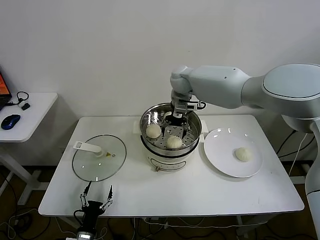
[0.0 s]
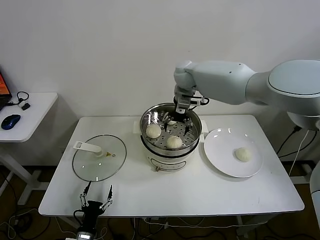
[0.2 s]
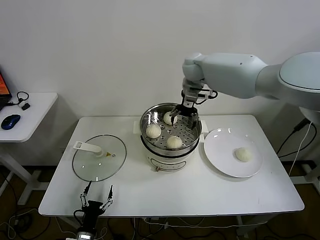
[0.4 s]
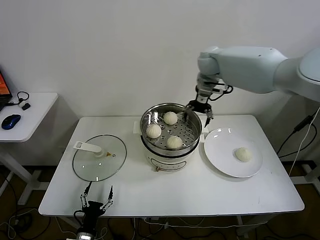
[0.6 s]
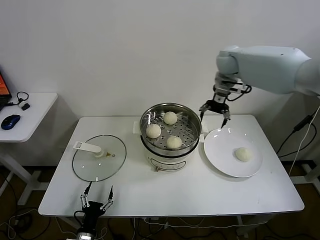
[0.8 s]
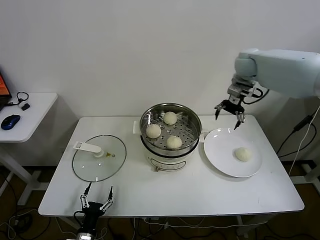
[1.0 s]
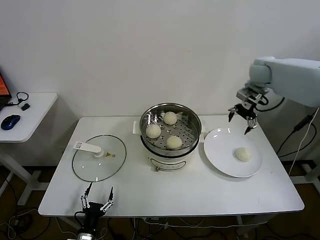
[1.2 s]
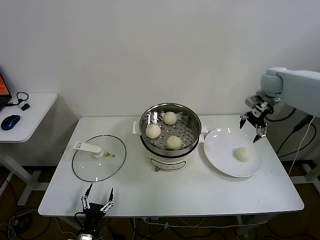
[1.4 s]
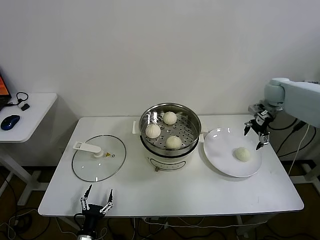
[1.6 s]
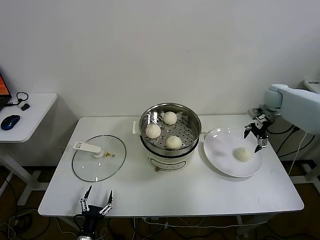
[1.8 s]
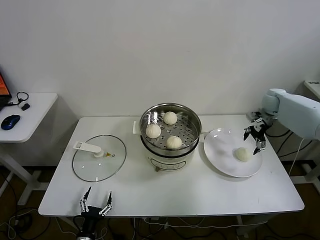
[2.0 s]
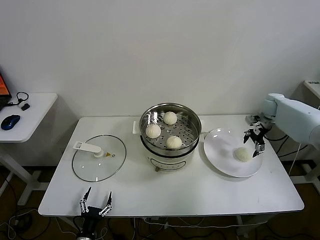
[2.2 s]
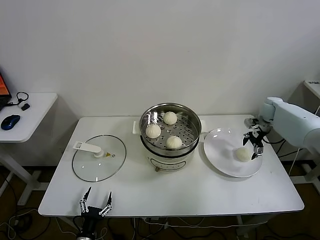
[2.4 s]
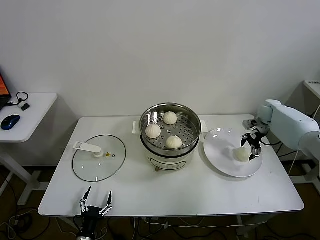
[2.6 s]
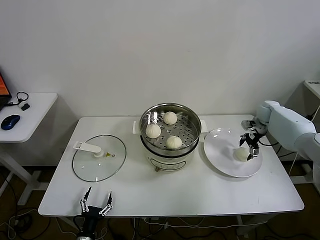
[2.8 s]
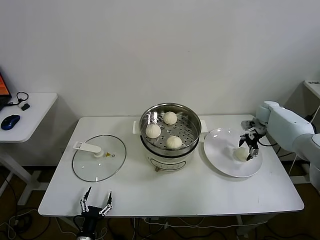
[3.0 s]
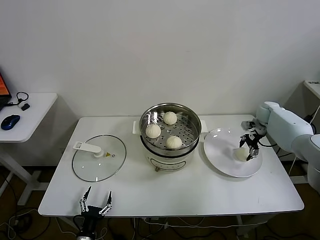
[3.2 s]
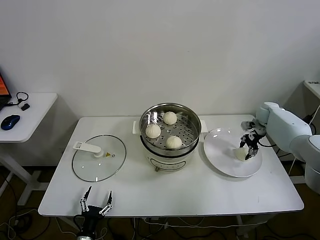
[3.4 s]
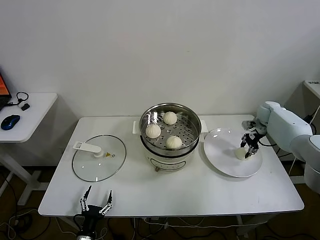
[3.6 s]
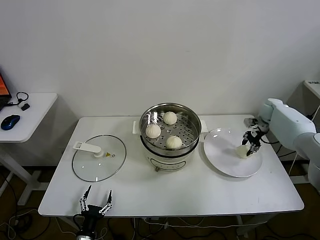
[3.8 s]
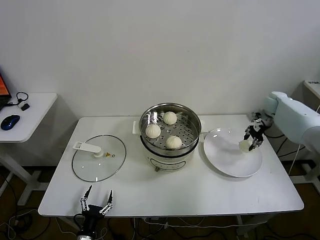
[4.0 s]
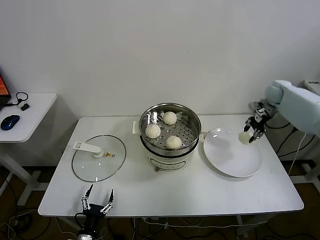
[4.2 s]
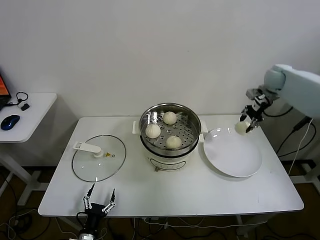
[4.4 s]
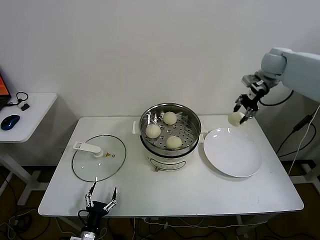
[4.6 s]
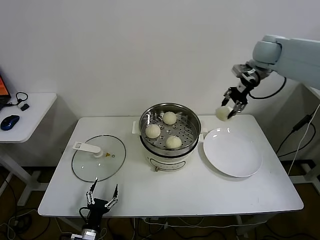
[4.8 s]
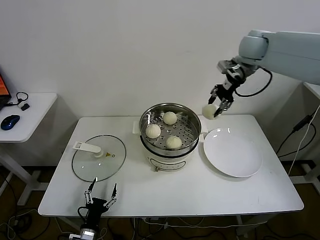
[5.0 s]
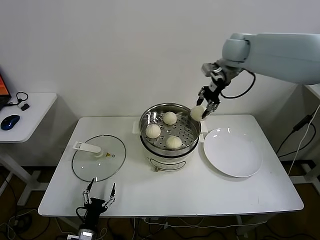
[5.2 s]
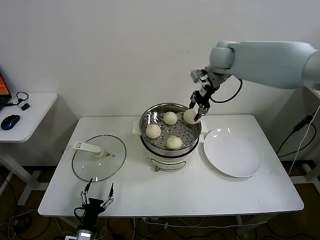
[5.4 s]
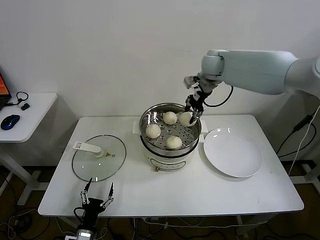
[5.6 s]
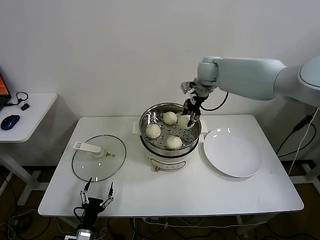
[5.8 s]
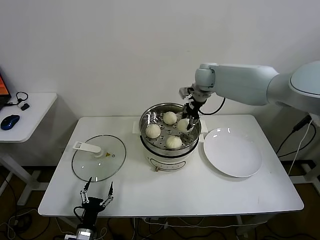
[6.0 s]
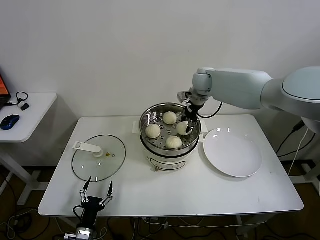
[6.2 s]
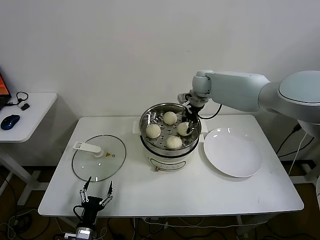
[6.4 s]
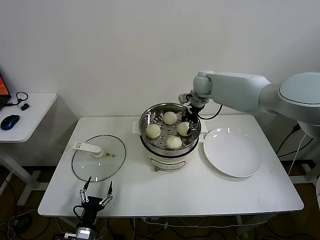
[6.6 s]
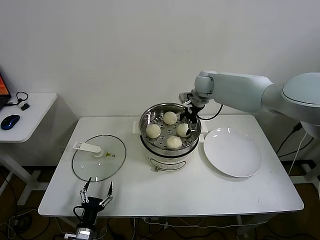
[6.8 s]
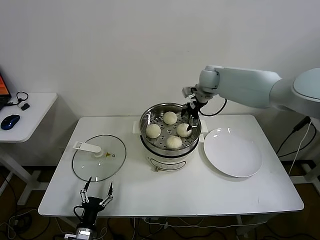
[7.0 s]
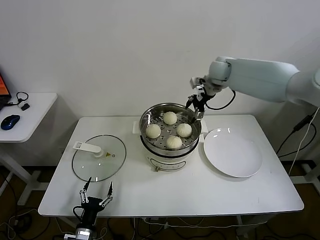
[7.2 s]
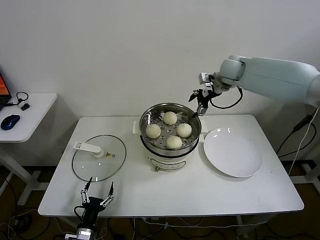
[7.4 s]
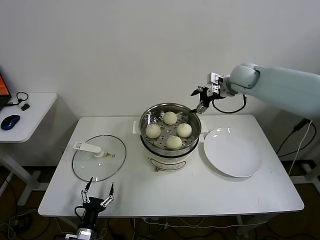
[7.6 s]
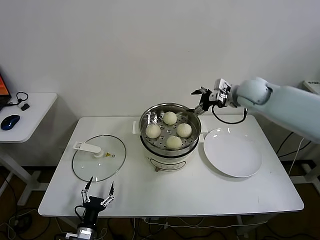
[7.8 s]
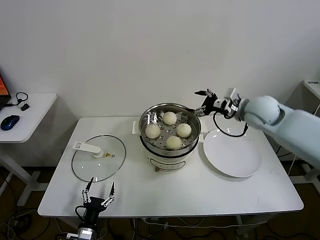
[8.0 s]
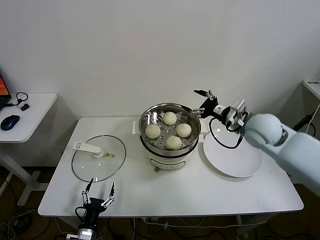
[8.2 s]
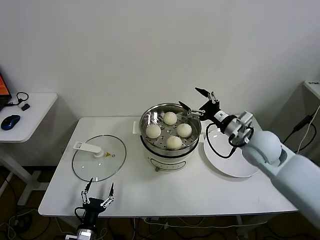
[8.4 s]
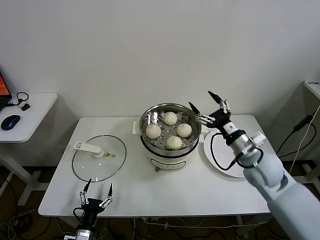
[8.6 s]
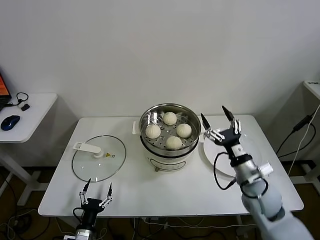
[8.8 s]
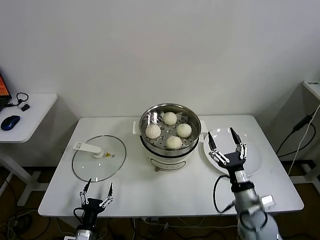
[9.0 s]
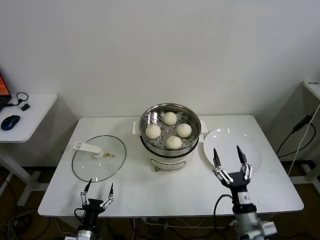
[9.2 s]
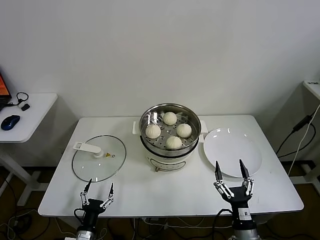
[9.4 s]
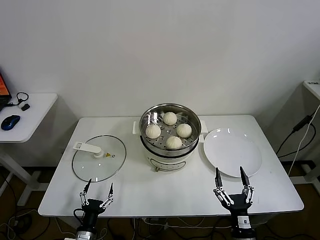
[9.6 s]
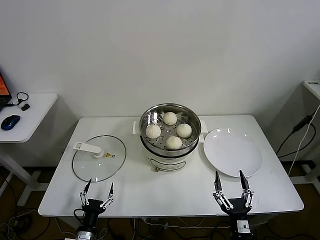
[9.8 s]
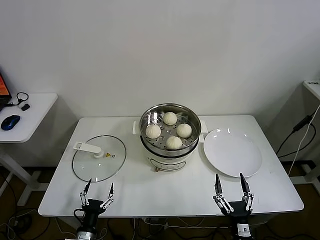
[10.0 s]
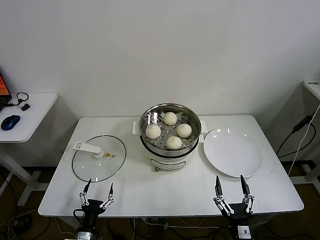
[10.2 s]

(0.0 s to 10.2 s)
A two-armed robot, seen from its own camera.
Task of the whole recording: take steamed baozi put them in steamer.
Step, 0.0 s - 3.4 s: Grasp the baozi in the plate with right gripper.
Step, 3.8 s - 6.8 s: Place the baozi on the steamer with right gripper.
0.0 s - 1.4 s: The right gripper moves to the right, about 30 cm.
1.4 s - 3.0 s: The right gripper travels downward by roughly 15 cm.
3.0 s - 4.4 s: The right gripper moves upward, some 15 cm, and closes its fingers.
4.4 s - 5.8 s: The right gripper moves to the left, about 25 cm.
5.8 s - 7.2 s: The right gripper opens its fingers.
7.2 s - 8.8 s: The right gripper is displaced backward and downward by some 40 cm.
8.8 s - 10.2 s: The right gripper heads backward and downward, covering some 25 cm.

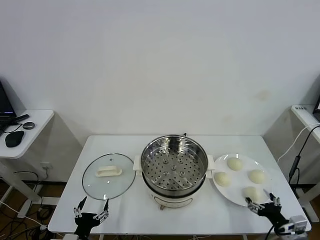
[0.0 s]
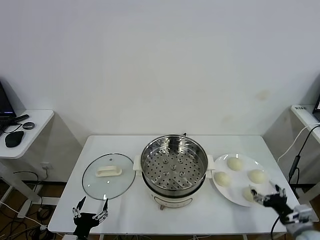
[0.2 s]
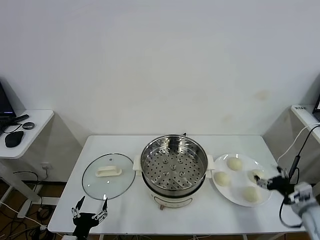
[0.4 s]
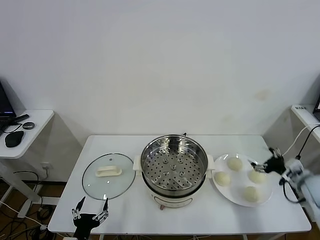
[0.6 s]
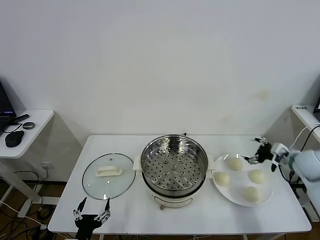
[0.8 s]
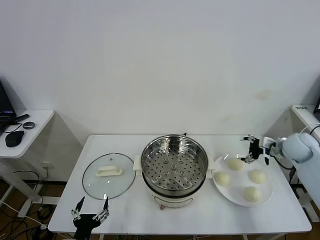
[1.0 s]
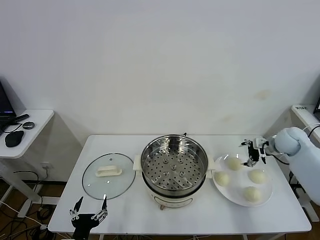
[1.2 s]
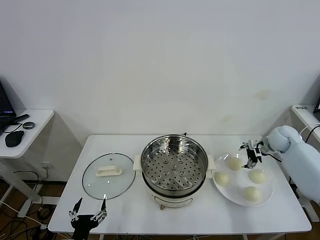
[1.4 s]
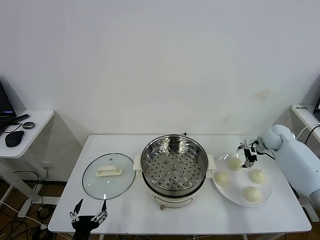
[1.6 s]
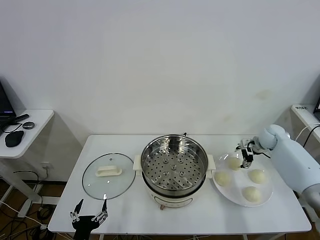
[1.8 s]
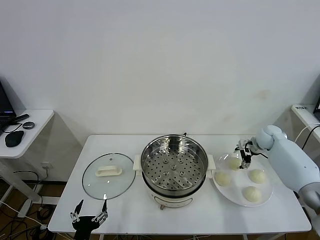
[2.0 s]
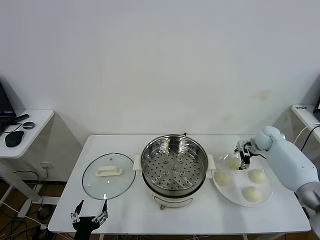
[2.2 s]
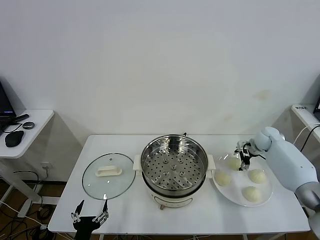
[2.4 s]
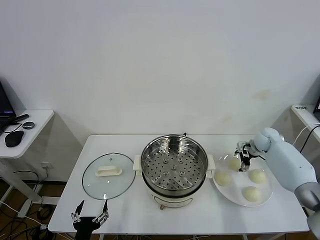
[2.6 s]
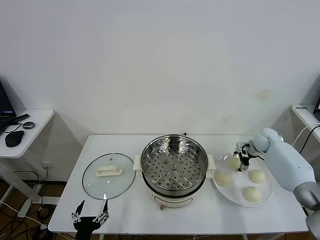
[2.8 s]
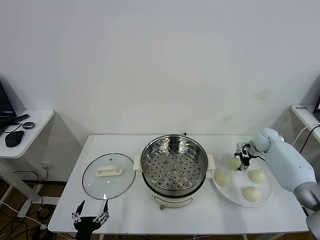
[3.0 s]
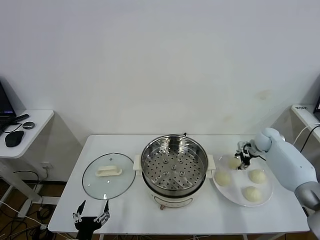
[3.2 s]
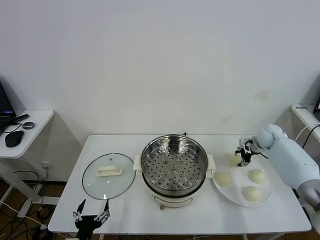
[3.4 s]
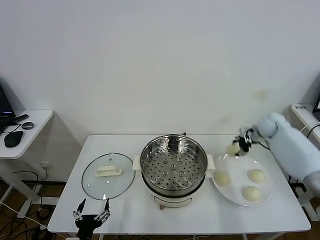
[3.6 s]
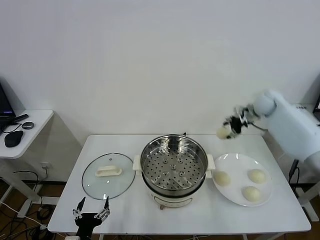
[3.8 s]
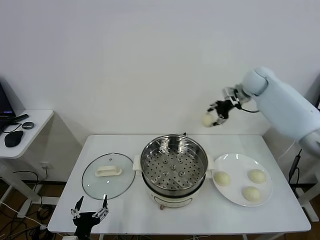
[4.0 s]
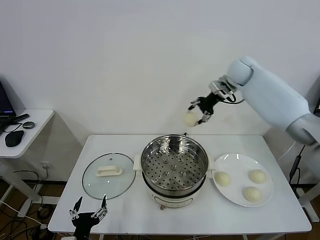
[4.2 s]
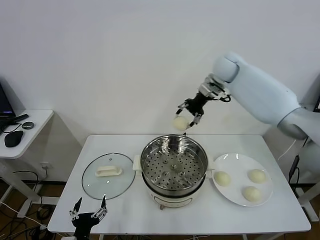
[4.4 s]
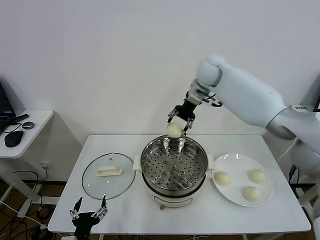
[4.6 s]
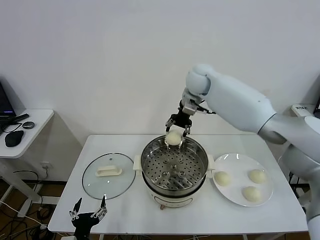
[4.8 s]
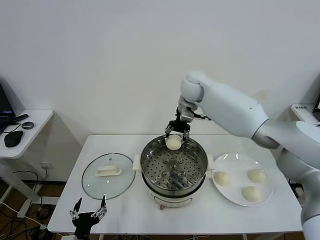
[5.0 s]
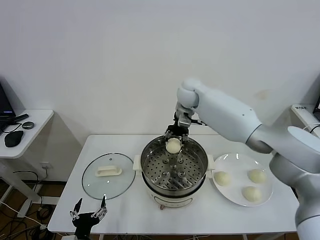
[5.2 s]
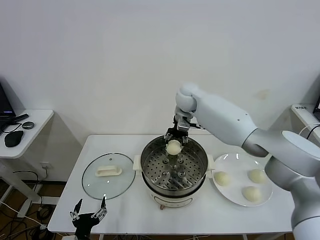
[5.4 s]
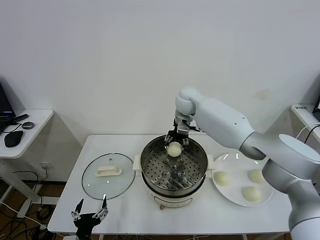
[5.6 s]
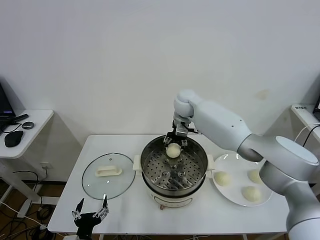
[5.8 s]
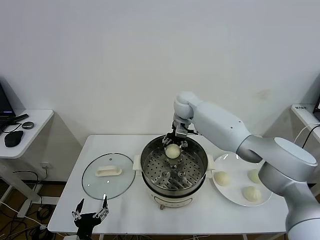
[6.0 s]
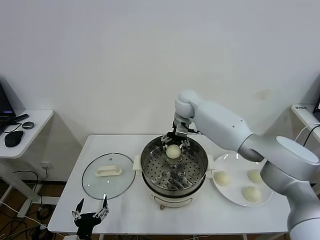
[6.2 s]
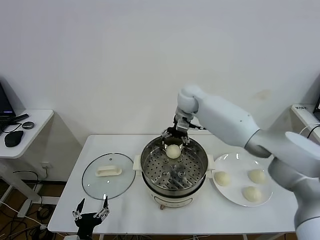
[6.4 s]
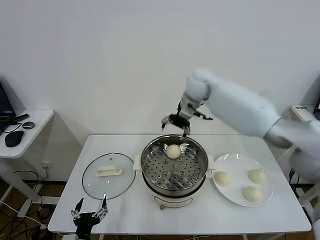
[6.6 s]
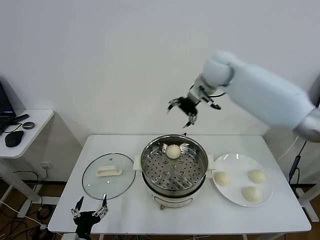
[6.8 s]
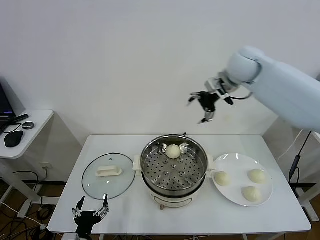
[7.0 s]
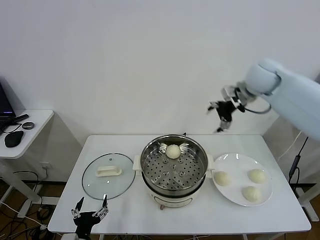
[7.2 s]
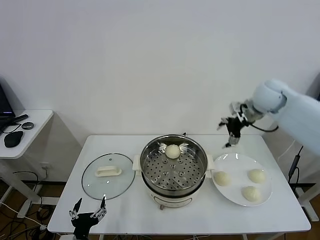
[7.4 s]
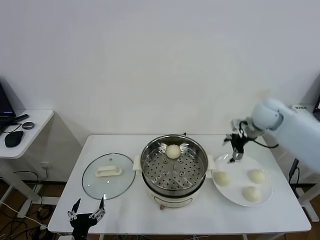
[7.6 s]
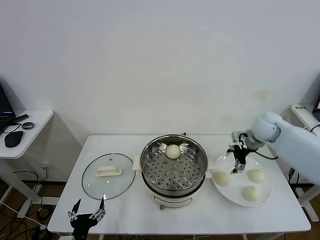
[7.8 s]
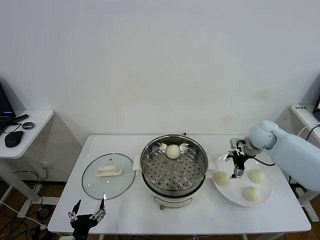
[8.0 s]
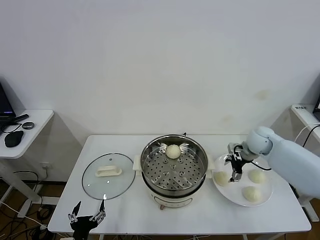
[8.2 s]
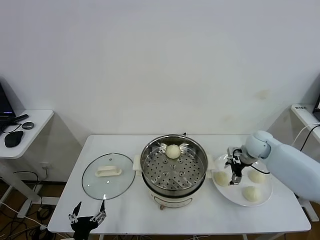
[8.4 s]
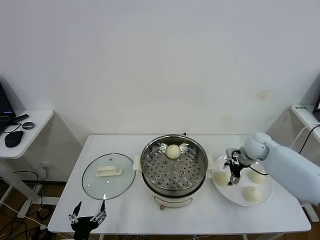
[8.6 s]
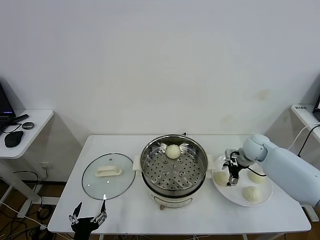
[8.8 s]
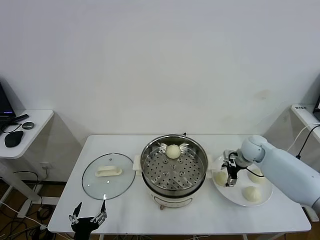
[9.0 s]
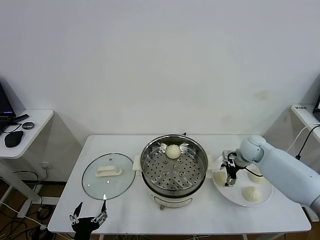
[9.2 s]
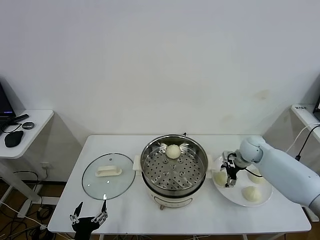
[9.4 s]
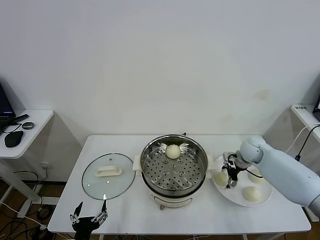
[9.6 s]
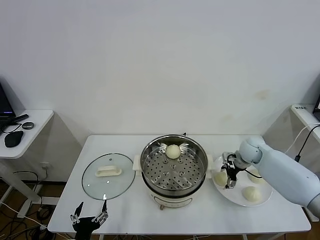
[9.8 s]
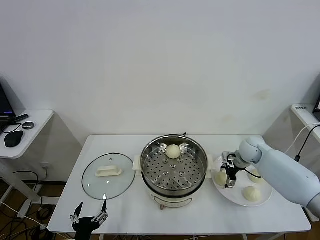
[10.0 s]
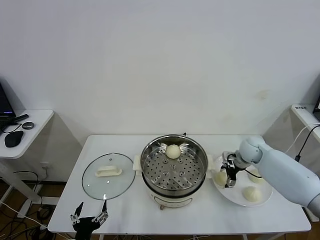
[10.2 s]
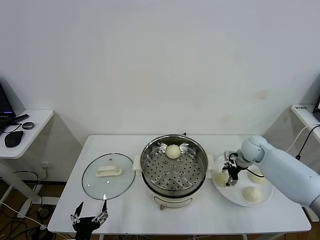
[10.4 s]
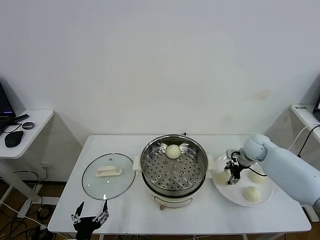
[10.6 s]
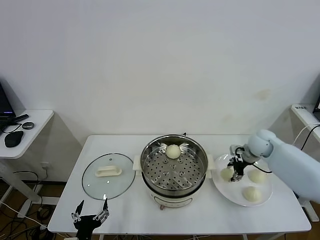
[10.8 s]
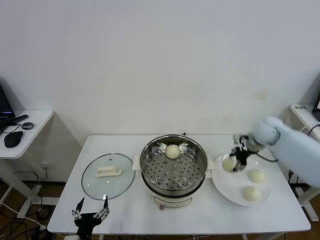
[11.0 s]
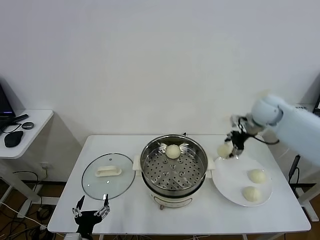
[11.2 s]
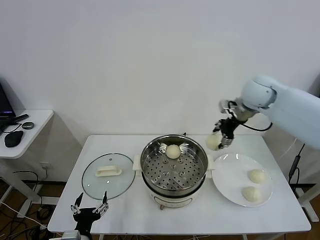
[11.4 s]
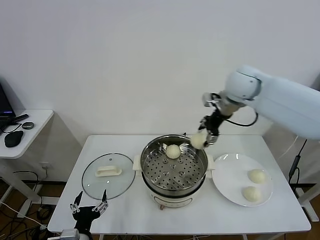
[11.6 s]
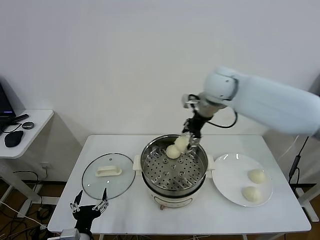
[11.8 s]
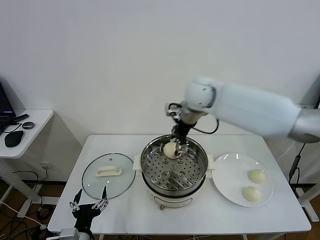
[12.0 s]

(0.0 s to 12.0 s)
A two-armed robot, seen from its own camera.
Task of the whole recording: take steamed baozi put them in steamer.
Step, 0.0 s - 3.0 s: Grasp the baozi in the plate with right gripper.
Step, 3.2 s - 6.4 s: Place the baozi on the steamer with right gripper.
Step, 6.6 s - 10.4 s: Grasp the baozi in the plate with right gripper.
1.6 s - 3.0 s: The right gripper closes up.
3.0 s - 4.4 s: The right gripper is displaced upward and to the left by about 35 cm.
4.4 s - 6.0 s: The right gripper moves downward and to the left, about 15 cm, and opens its fingers.
6.0 s - 7.6 s: The right gripper goes roughly 25 cm to the right.
7.6 s - 9.0 s: The right gripper goes roughly 15 cm downward.
10.4 s - 12.0 s: The right gripper shifts about 35 cm to the left and upward.
